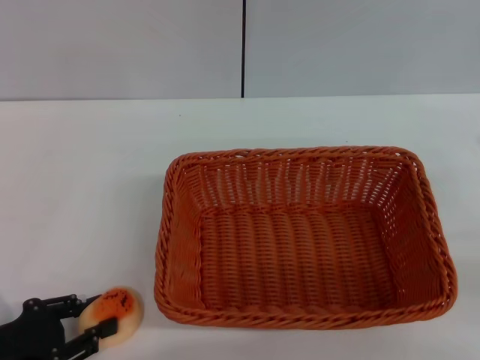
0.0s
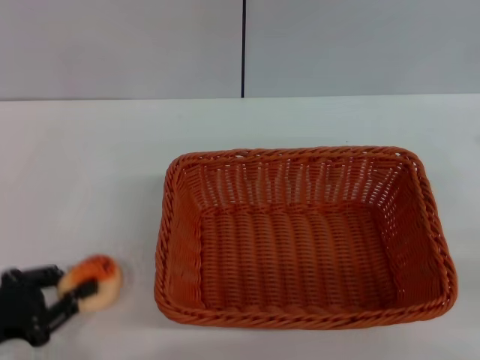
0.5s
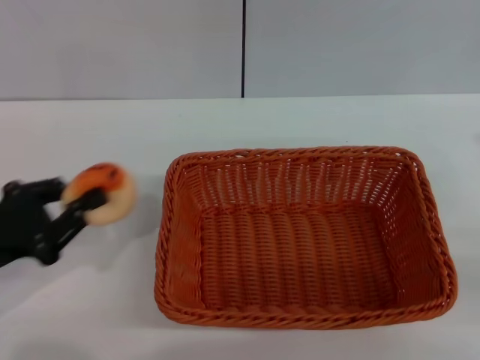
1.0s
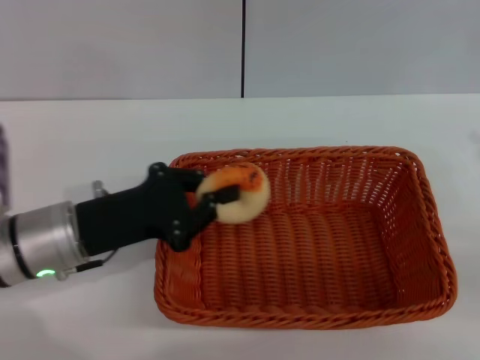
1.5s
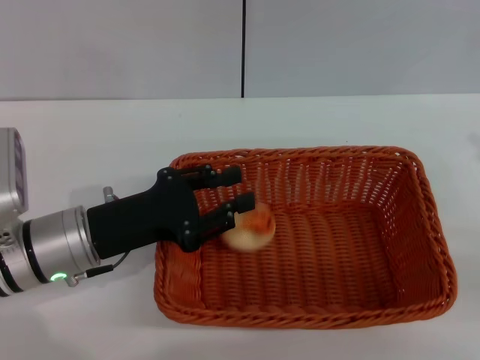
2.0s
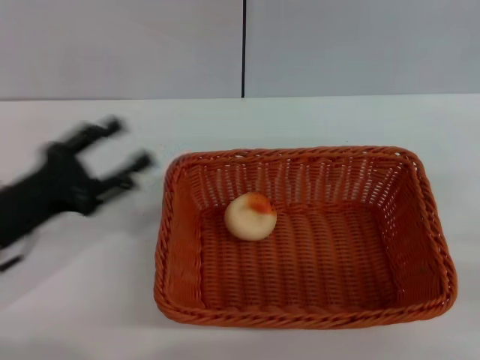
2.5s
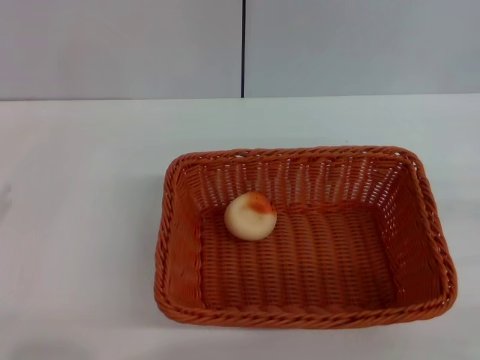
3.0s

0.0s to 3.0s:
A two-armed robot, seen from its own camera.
Step, 1.0s to 2.0s: Place the egg yolk pastry into the basket with the left gripper.
0.0s to 1.5s: The left gripper is displaced forward and to the right by roughly 15 cm, and closes.
1.5s to 3.0s: The left gripper moves to the left and backward, roughly 20 cm, and opens its fingers. The right gripper is displaced downward by roughly 5 cm.

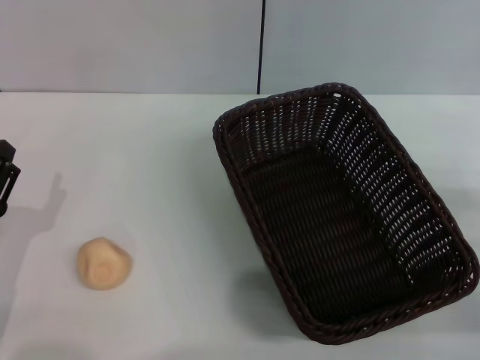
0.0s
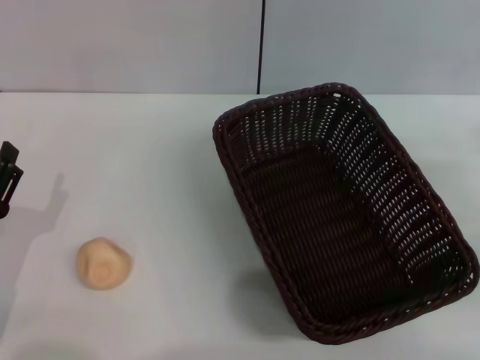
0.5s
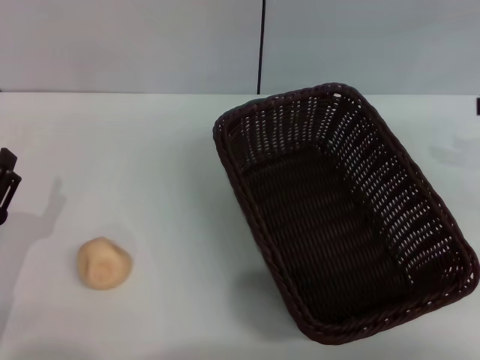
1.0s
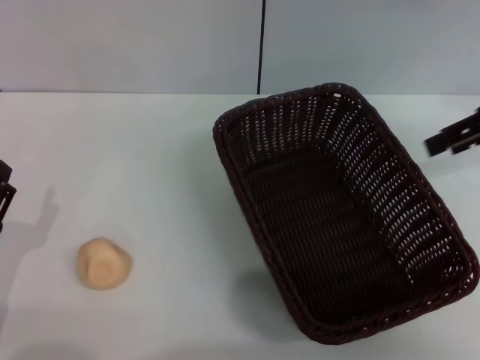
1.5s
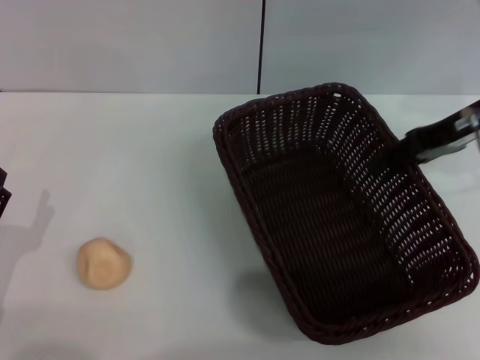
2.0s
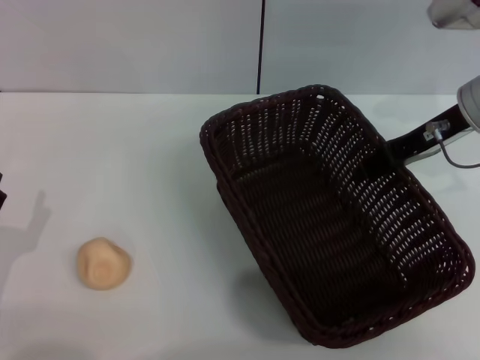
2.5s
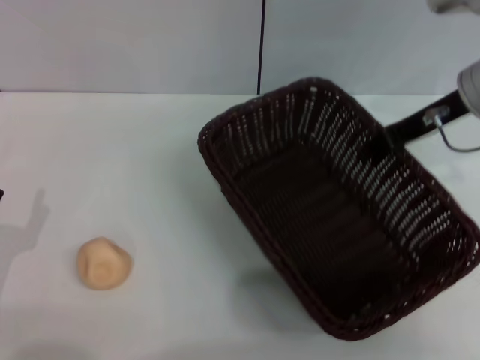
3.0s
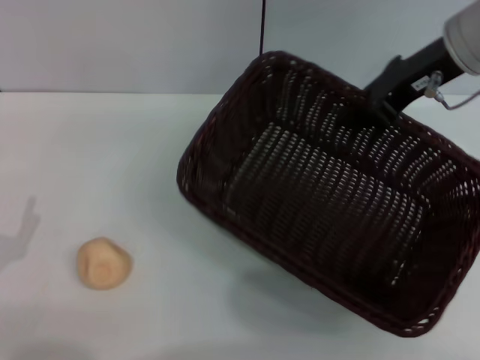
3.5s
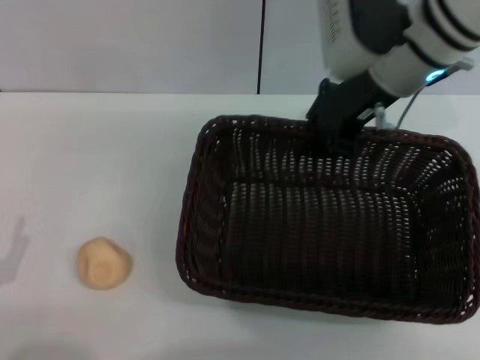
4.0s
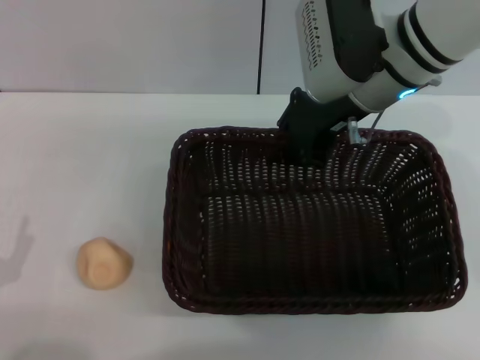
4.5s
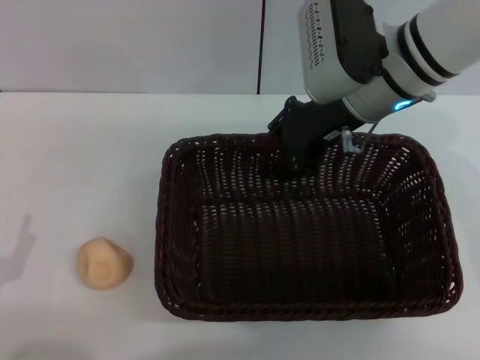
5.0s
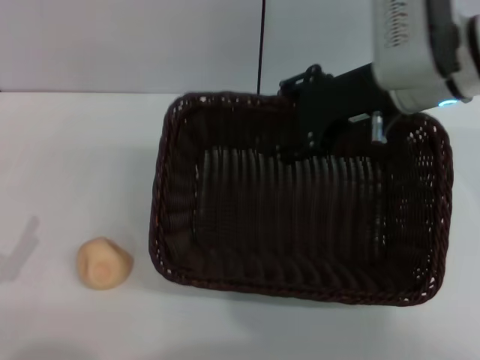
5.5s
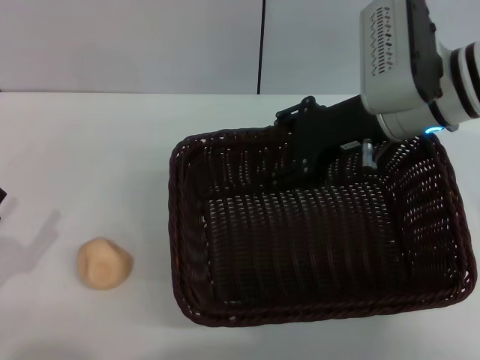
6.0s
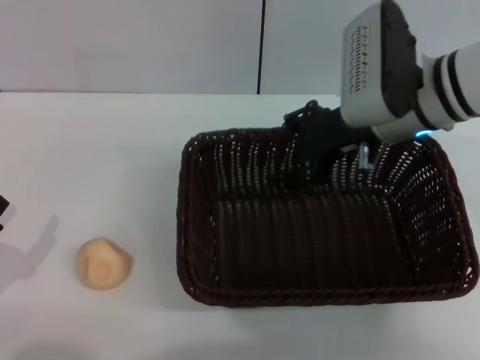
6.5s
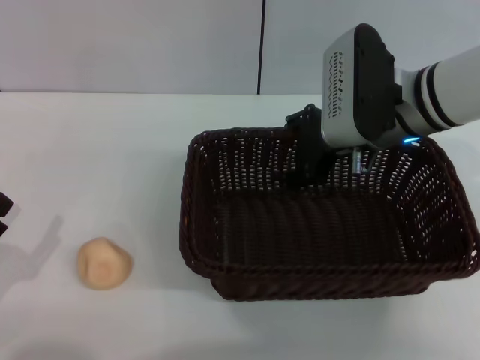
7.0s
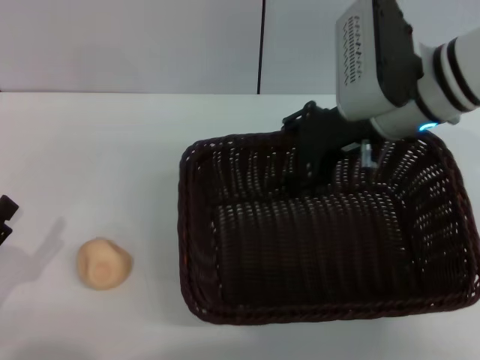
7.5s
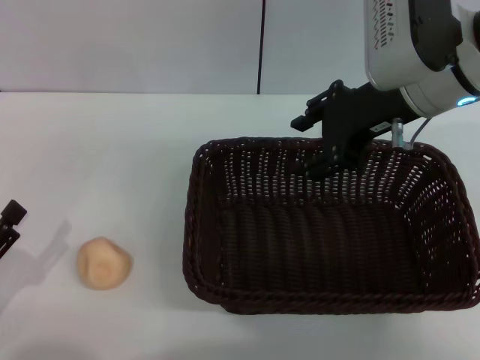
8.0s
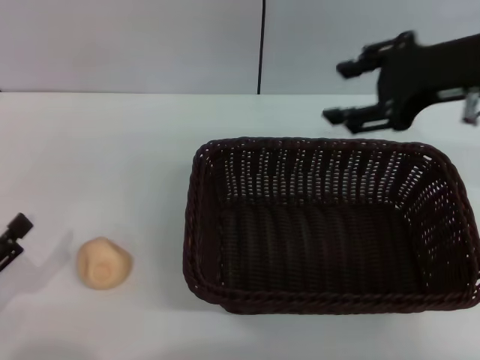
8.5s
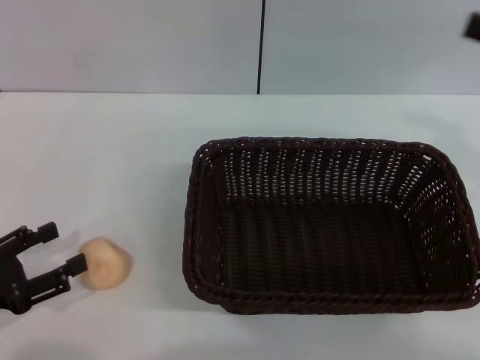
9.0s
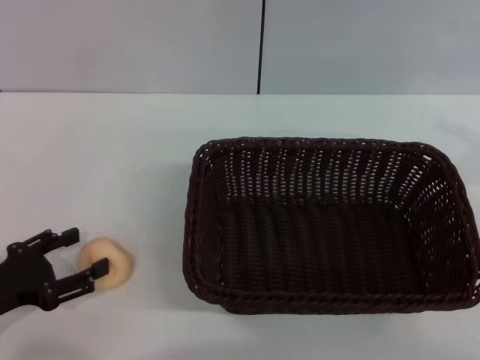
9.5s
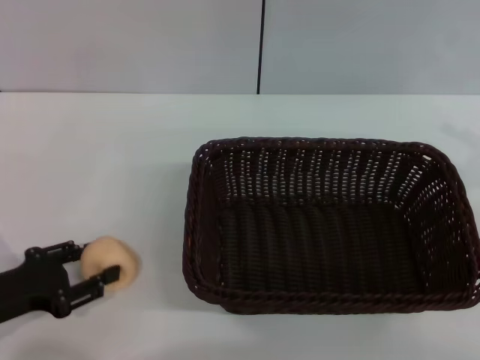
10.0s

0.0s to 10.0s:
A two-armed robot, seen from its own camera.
Step, 0.0s to 8.0s: Move the basket to the center of view with the right gripper.
0.0s to 2.0s: The right gripper is displaced forward, upward and to the left by about 25 cm.
2.0s to 4.0s: The right gripper is displaced to the left by roughly 15 cm, and closes.
4.0s to 6.0s: The right gripper ends up roughly 5 cm from where it was, and opens its fingers.
6.0s to 8.0s: The grippers move only a little.
8.0s to 10.0s: The left gripper goes about 5 cm forward; the right gripper goes roughly 25 cm to the right and backward.

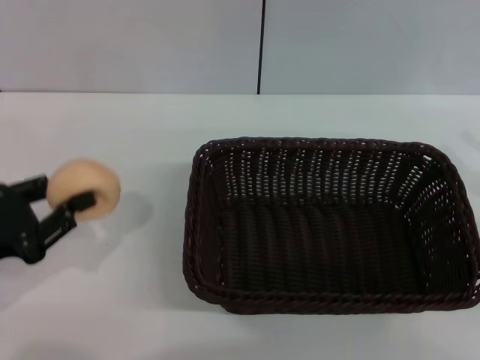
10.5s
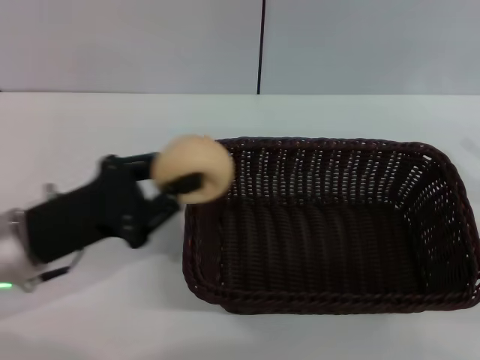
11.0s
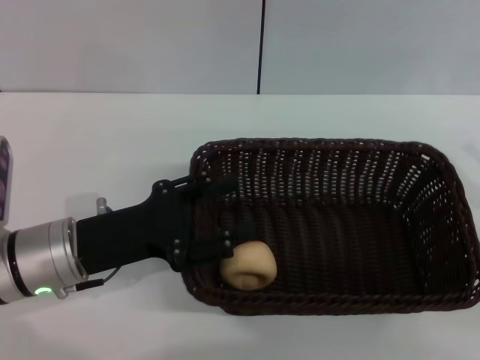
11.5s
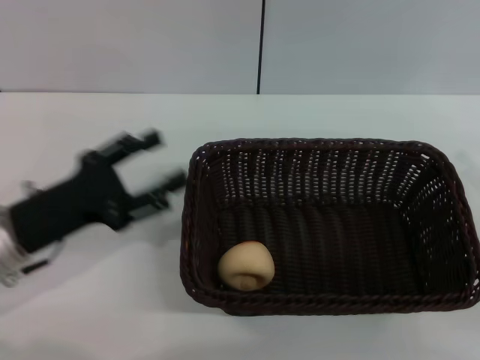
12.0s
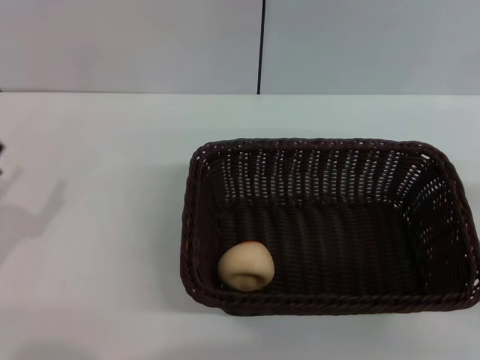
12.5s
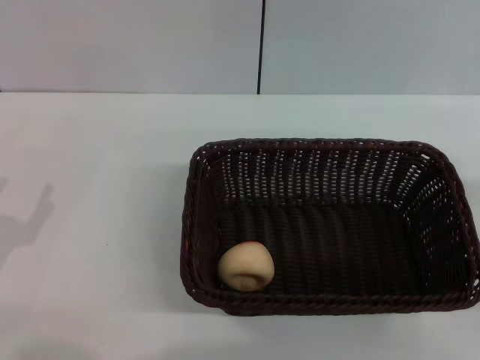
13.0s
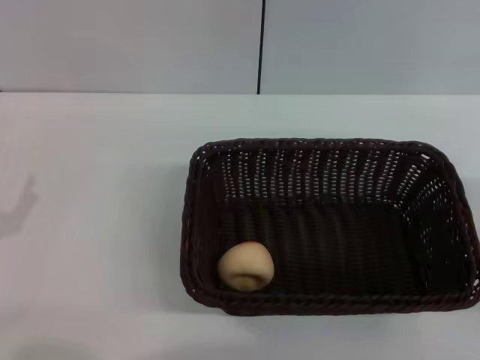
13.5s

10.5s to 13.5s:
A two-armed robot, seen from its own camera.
Step, 11.0s to 11.5s: Place the egg yolk pastry into the basket with the left gripper.
10.5s to 12.0s: The left gripper is displaced to the right by some 5 cm, and opens its fingers.
12.0s to 13.5s: The left gripper goes approximately 10 cm to the left and backward.
